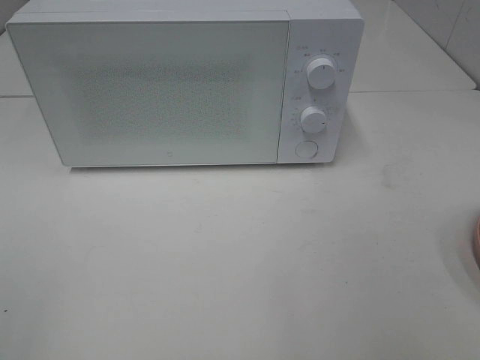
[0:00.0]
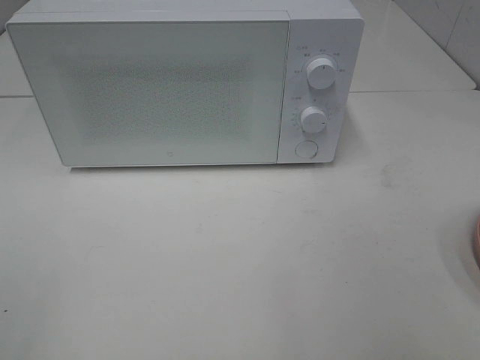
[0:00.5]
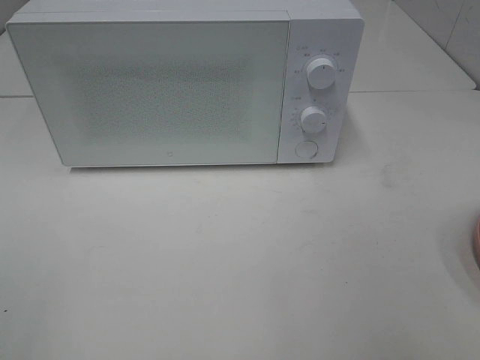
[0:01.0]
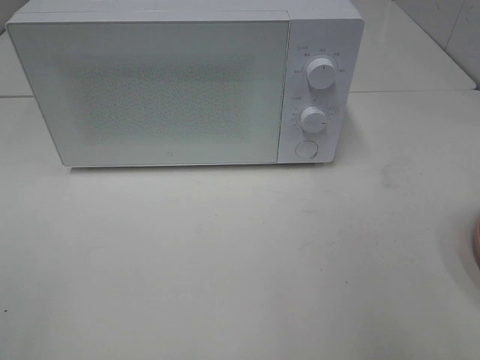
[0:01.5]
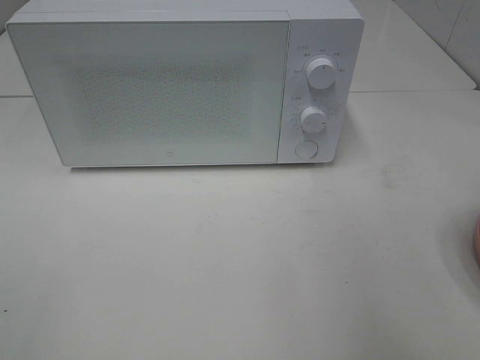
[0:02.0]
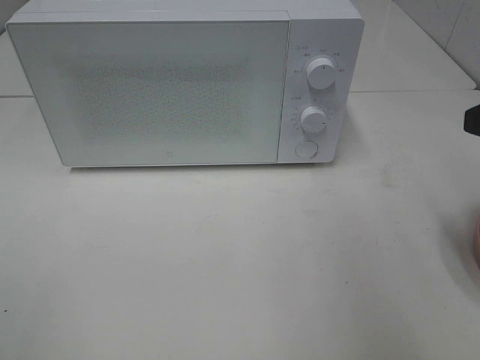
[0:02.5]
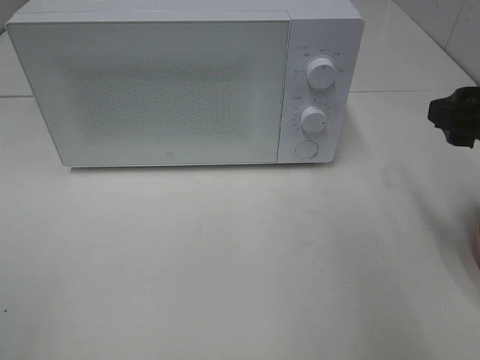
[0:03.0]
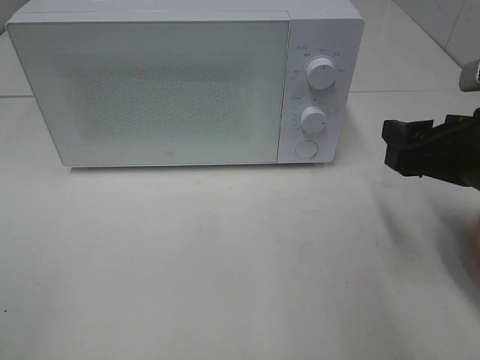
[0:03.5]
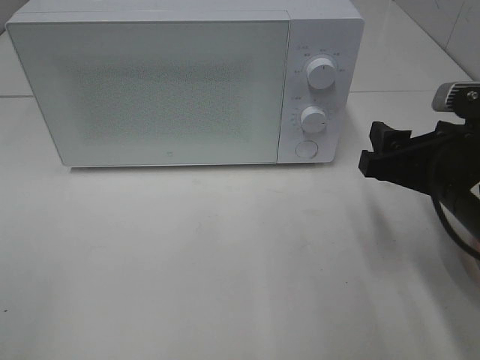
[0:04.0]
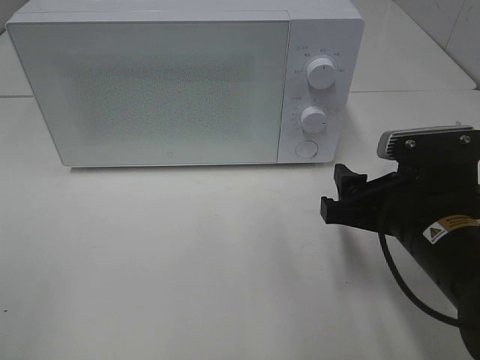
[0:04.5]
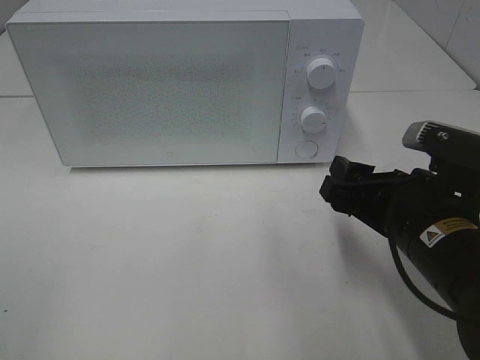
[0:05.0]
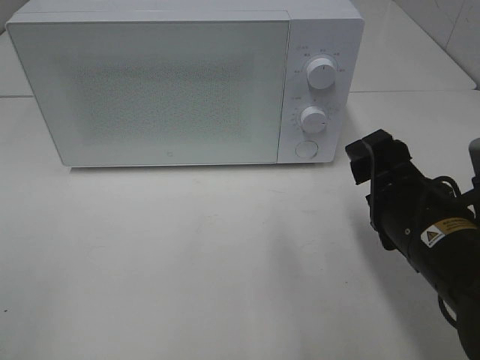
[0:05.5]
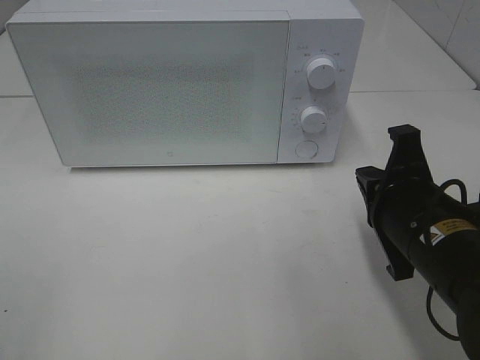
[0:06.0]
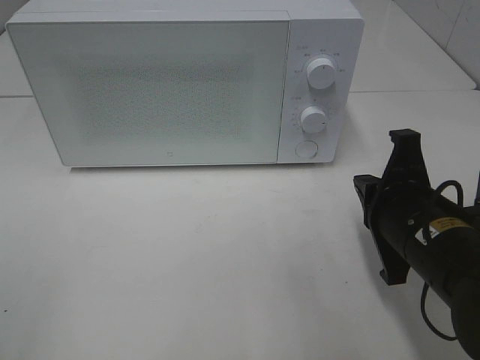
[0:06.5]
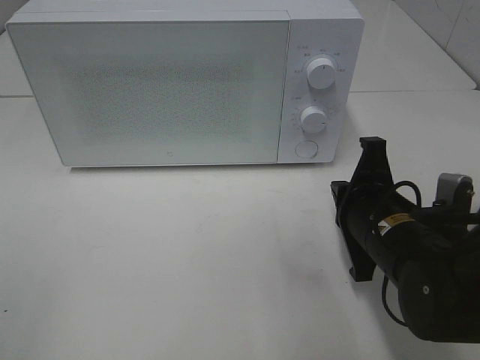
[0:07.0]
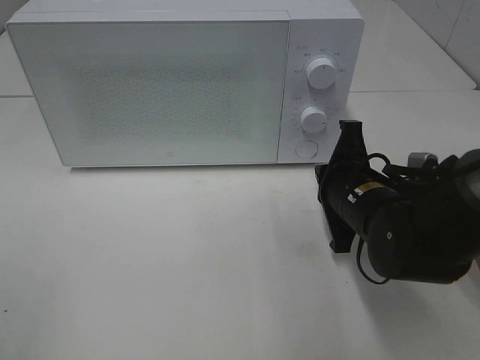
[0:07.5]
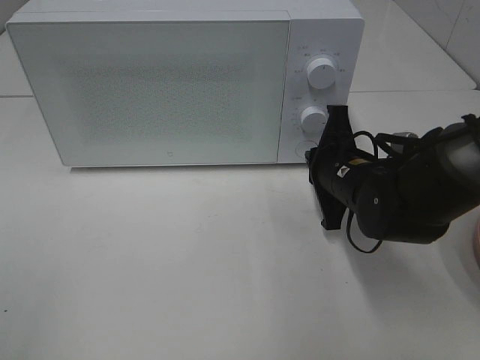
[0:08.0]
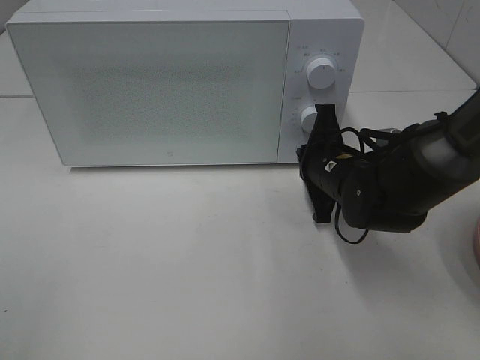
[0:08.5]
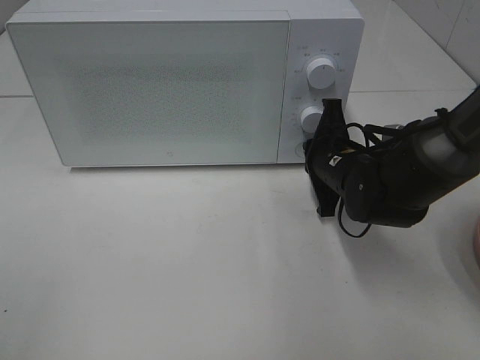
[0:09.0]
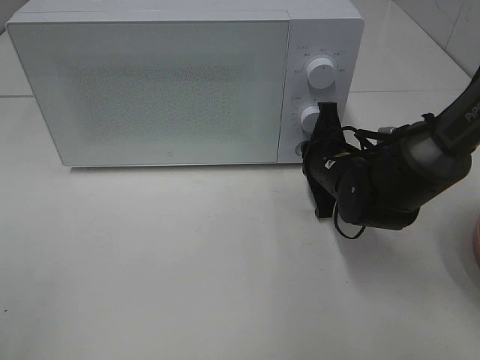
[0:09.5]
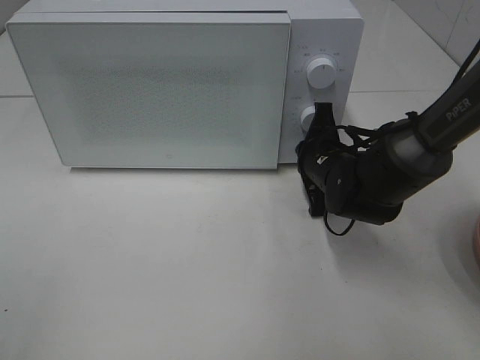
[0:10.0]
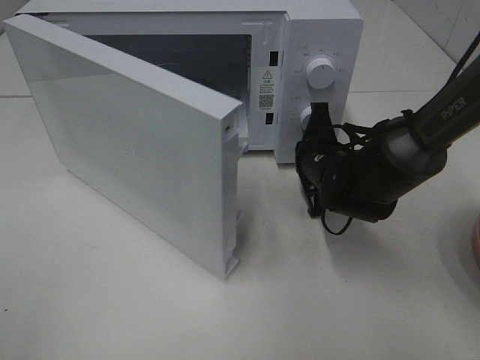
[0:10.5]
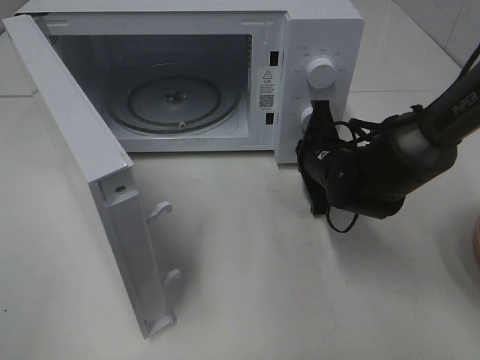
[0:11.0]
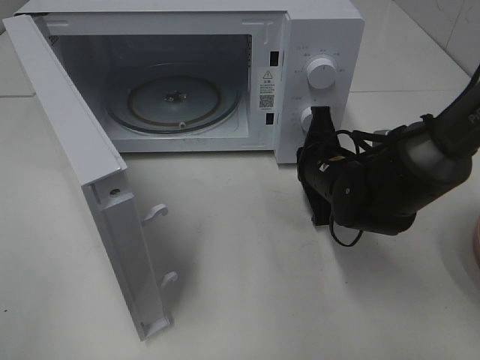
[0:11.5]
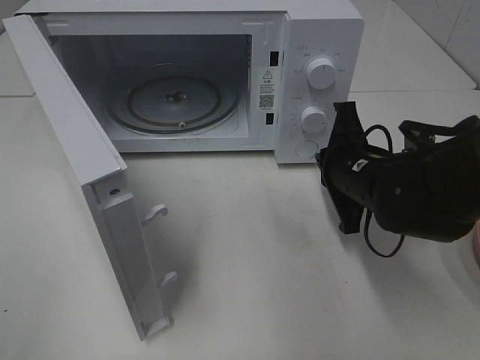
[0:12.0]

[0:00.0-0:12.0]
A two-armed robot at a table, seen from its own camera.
Task of the whole recording: Heat the burger.
0:02.0 to 0:04.0: The right gripper heads downward, to the left and forward, covering roughly 15 cm.
0:04.0 to 0:06.0: The right gripper moves some 5 cm, and closes up.
0:06.0 to 0:08.0: The right gripper is displaced forward by approximately 10 cm.
0:08.0 to 0:10.0: The right gripper moves about 5 cm.
0:10.0 to 0:12.0: The right gripper moves backward, approximately 5 cm.

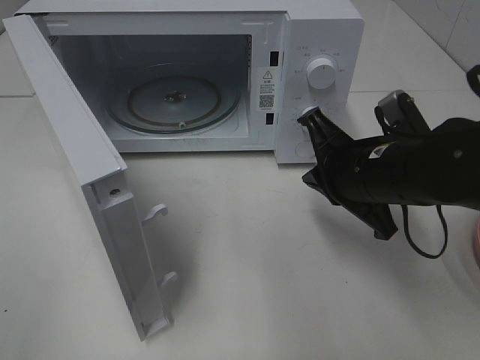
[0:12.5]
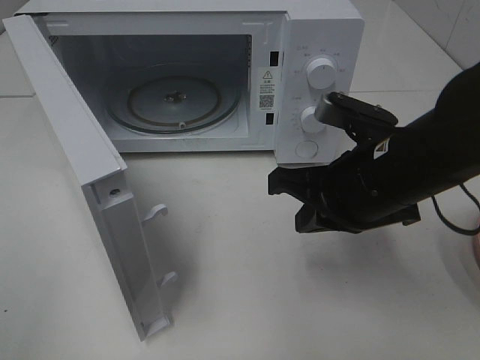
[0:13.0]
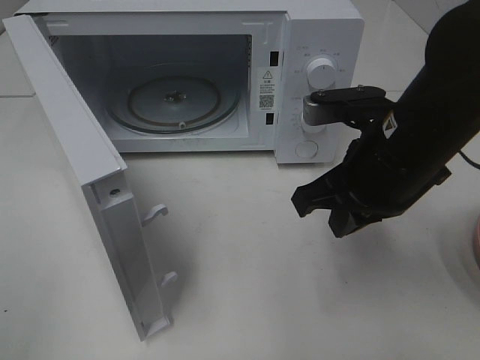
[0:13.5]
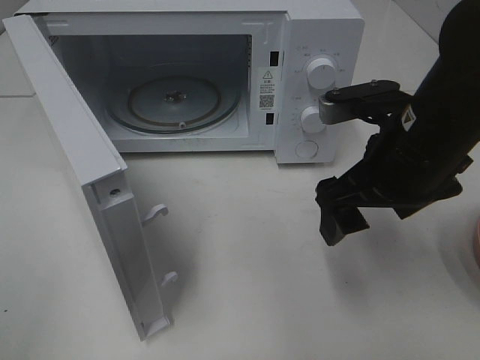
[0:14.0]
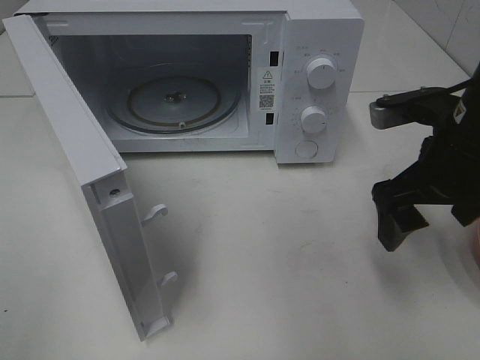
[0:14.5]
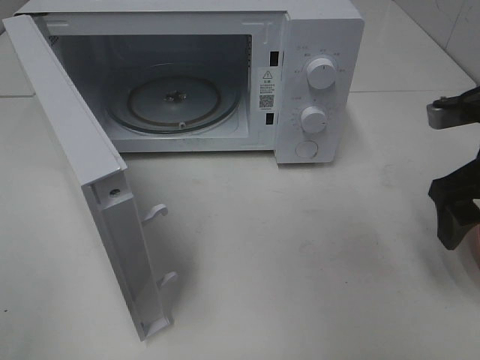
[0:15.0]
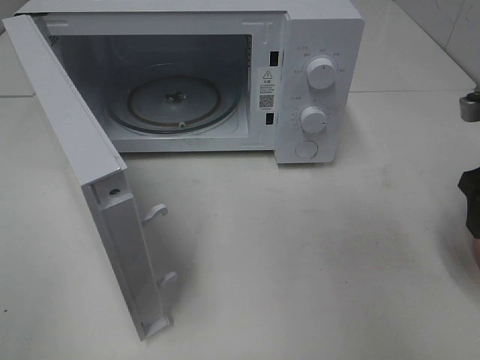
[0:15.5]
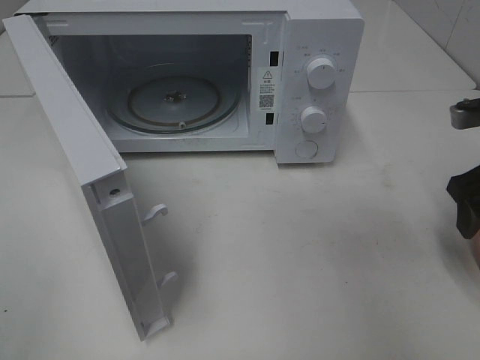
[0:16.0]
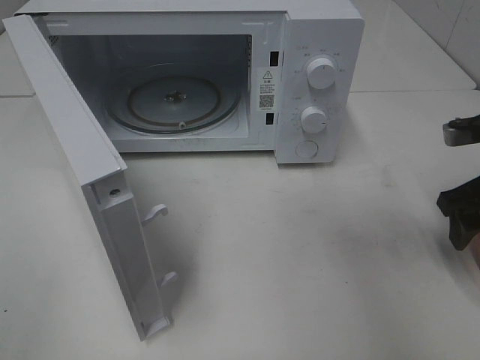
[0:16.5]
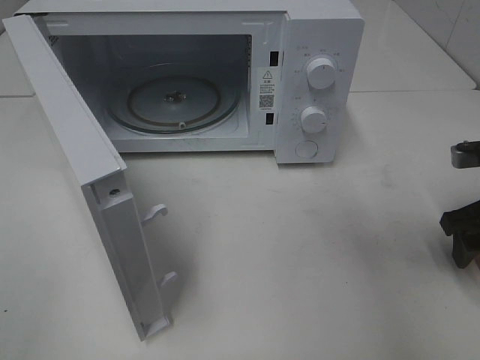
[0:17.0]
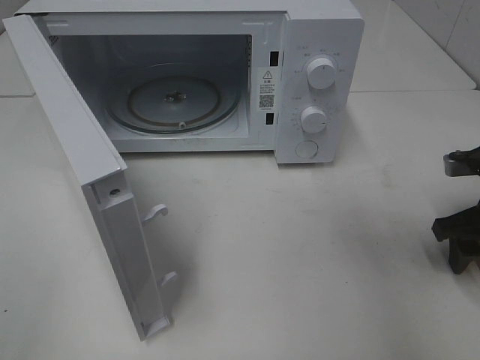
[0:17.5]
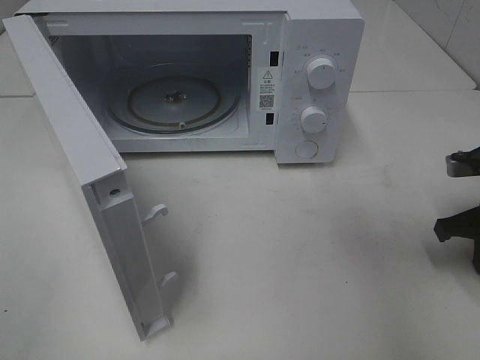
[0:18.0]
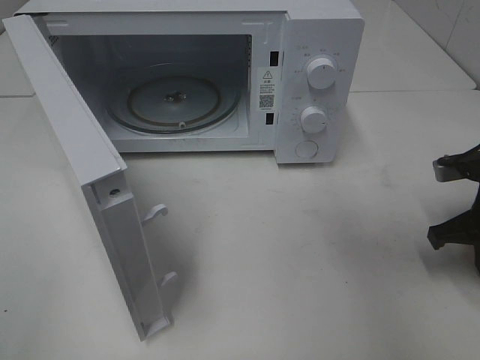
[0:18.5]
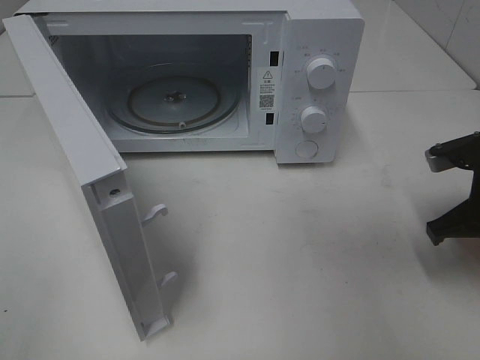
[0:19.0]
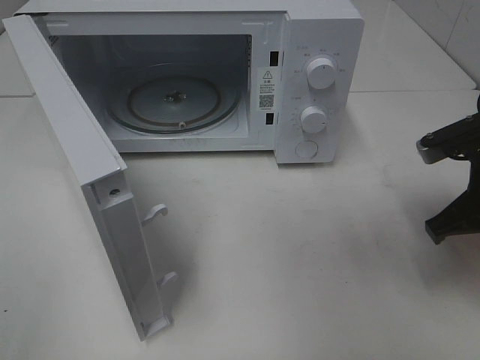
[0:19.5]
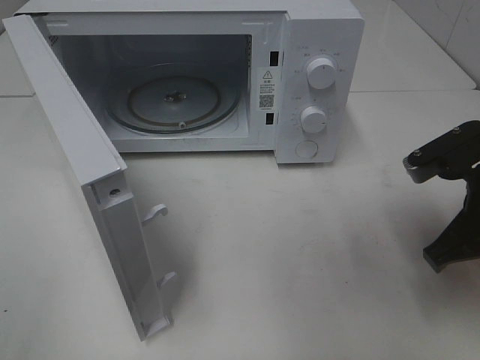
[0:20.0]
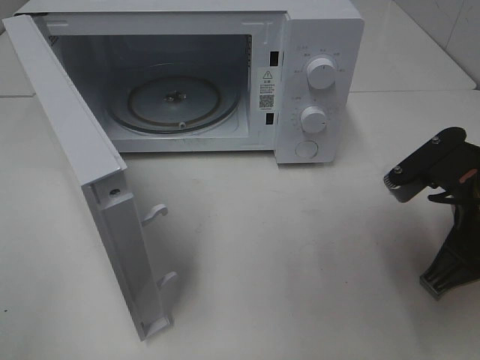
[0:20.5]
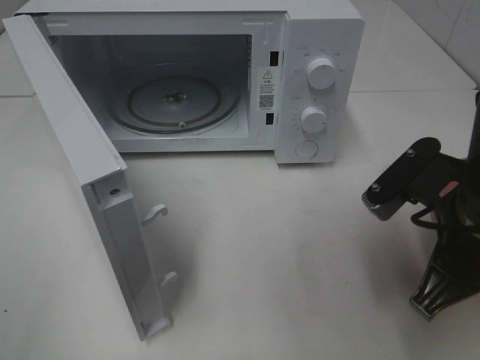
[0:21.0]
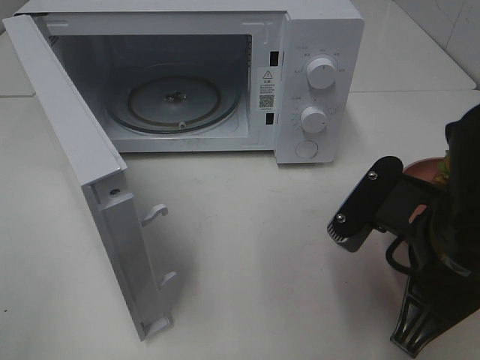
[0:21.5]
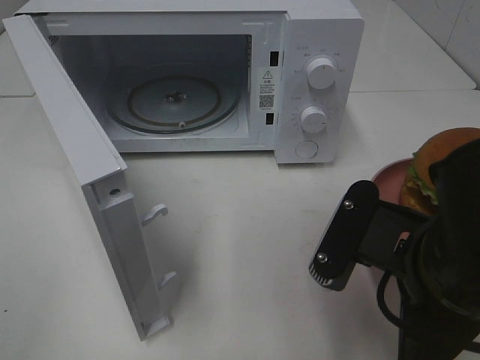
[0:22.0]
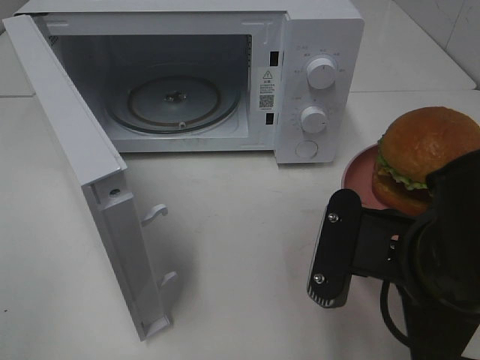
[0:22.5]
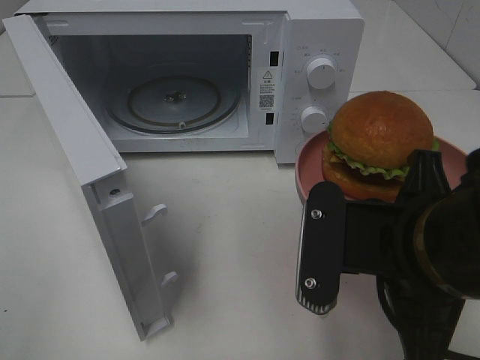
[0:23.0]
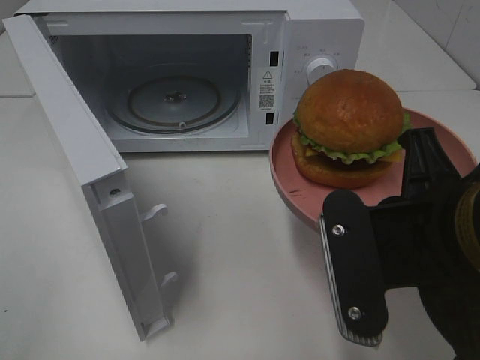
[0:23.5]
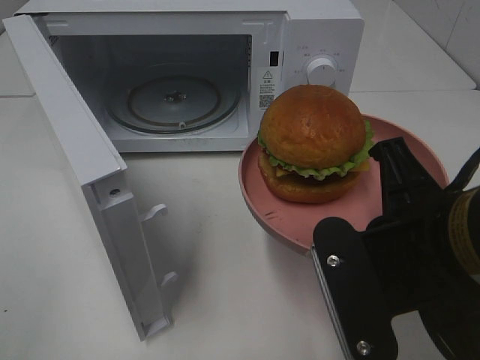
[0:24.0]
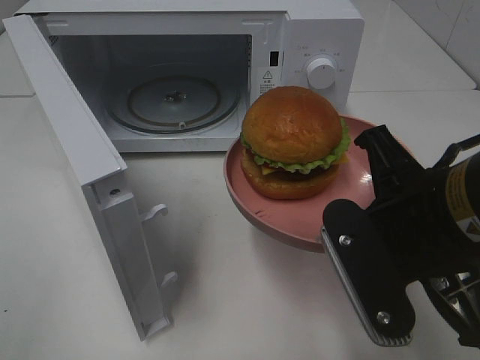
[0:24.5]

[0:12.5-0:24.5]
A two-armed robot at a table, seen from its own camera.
Task of the whole recording: Heat the burger.
Step, 0:12.5 to 0:18.5: Right hand: grab the plate with the hamburger.
0:12.5 to 0:14.5: The right gripper is displaced to the right and upward by some 10 cm, and opens.
0:14.5 to 0:16.5: The right gripper shifts about 10 cm to the right and downward.
0:16.5 to 0:18.5: The right gripper closes its fingers.
0:18.5 to 0:20.5: The right gripper goes some 15 cm to the left, backward and upward.
0:20.5 to 0:22.5: The right gripper shifts roughly 10 cm to the left and backward.

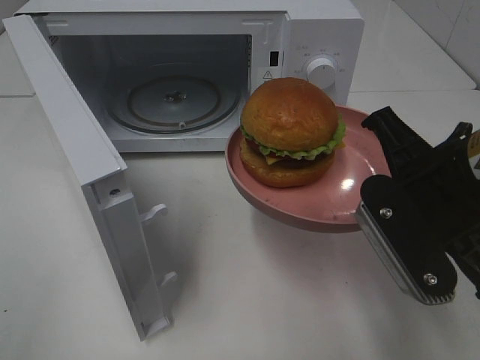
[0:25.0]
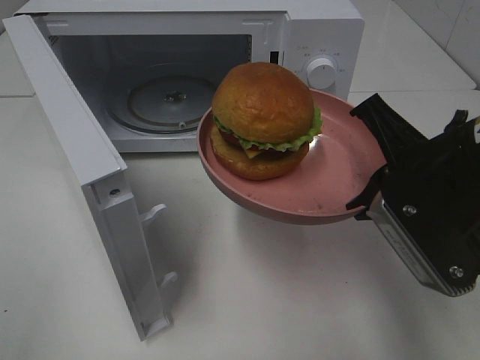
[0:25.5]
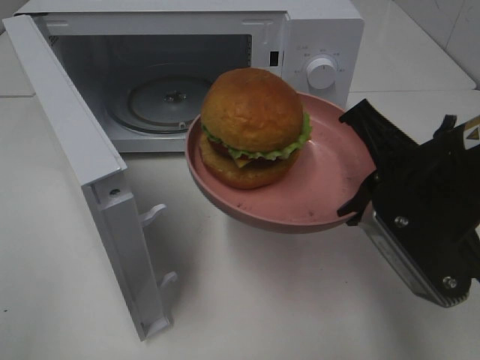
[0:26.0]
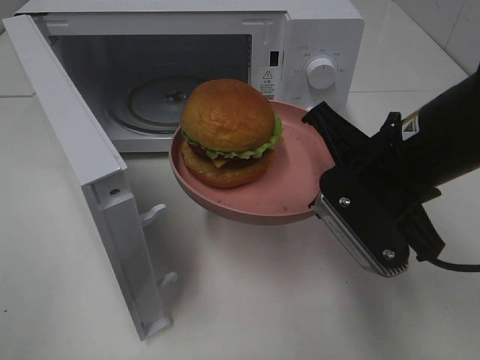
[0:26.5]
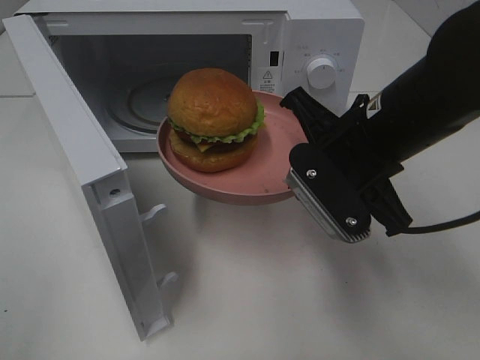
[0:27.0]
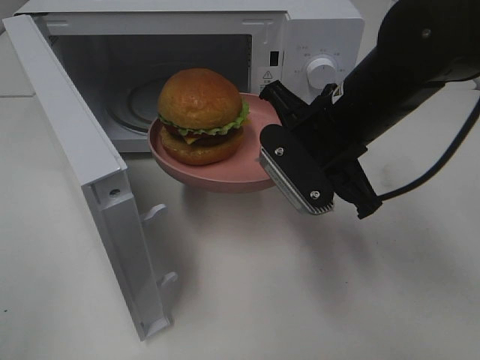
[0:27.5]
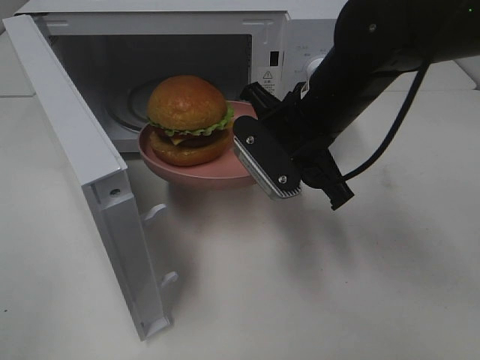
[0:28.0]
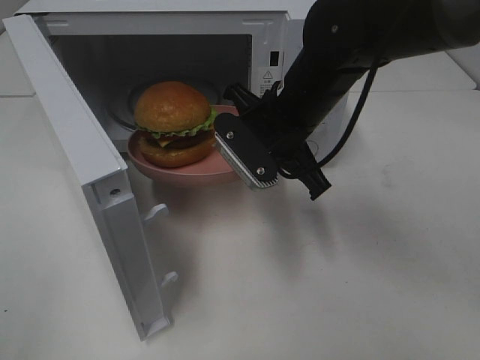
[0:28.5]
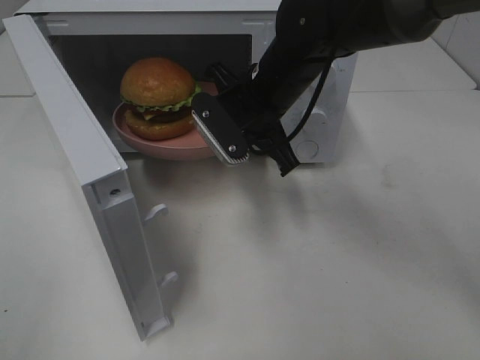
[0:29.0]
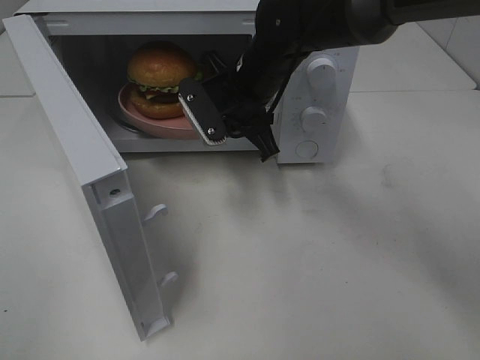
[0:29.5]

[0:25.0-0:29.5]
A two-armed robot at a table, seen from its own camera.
Task of the whole recording: Heat the burger.
0:25.0 to 0:27.0: The right gripper travels forward by about 5 cm.
0:27.0 to 0:29.5: The right gripper is displaced forward and to the left by some 20 cm.
